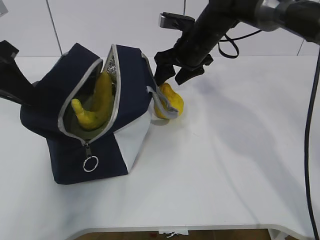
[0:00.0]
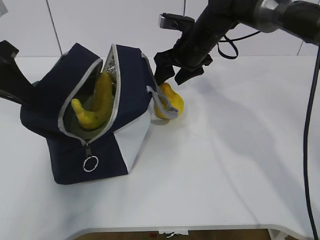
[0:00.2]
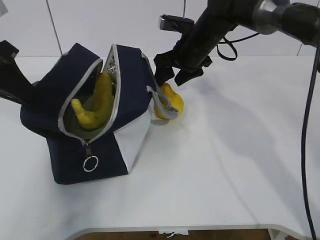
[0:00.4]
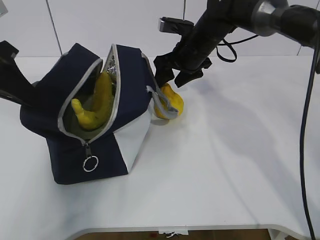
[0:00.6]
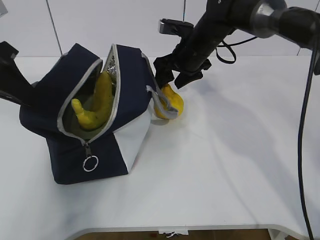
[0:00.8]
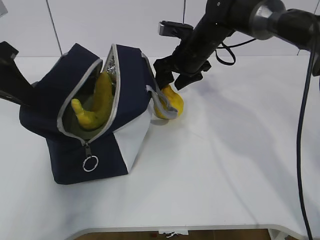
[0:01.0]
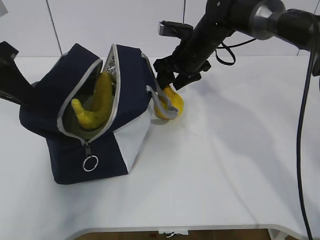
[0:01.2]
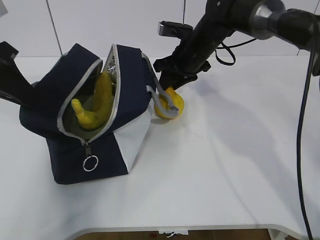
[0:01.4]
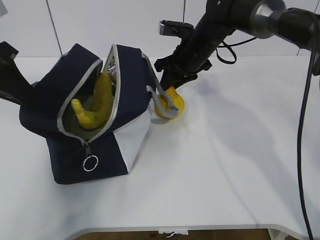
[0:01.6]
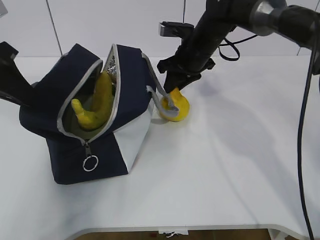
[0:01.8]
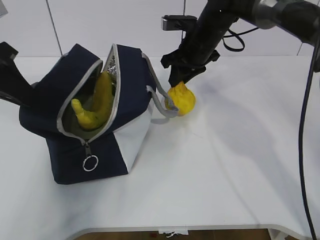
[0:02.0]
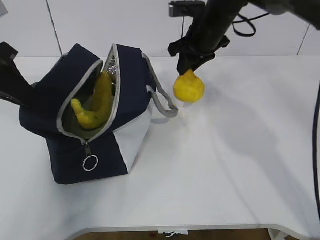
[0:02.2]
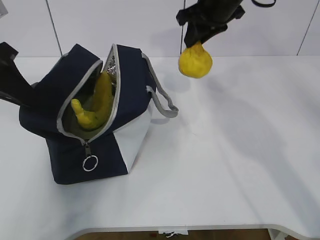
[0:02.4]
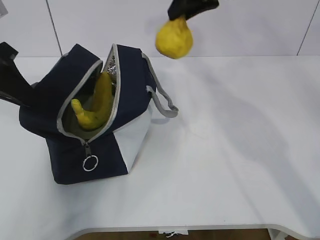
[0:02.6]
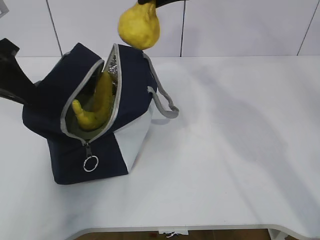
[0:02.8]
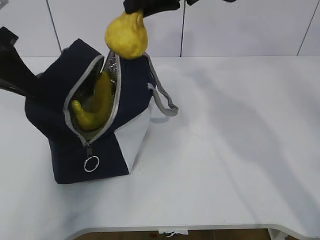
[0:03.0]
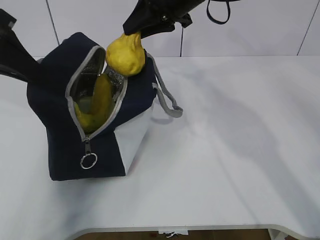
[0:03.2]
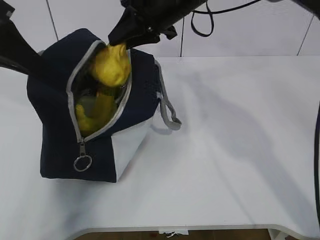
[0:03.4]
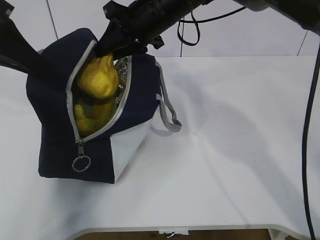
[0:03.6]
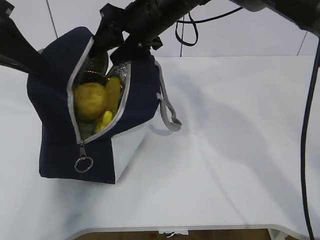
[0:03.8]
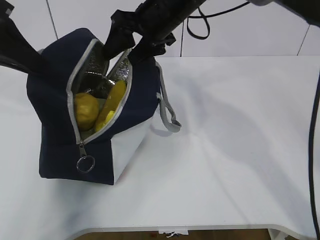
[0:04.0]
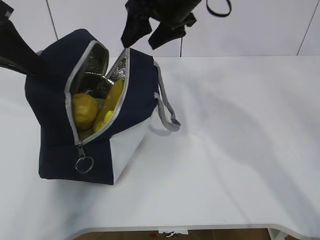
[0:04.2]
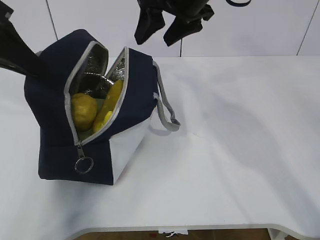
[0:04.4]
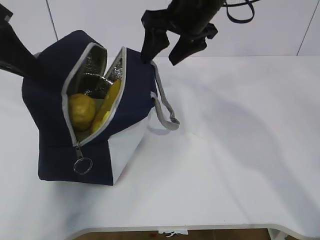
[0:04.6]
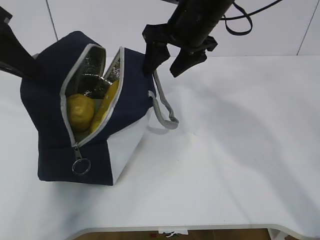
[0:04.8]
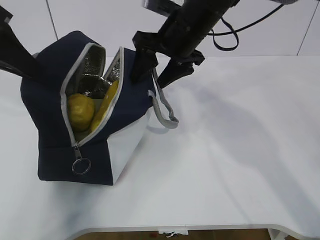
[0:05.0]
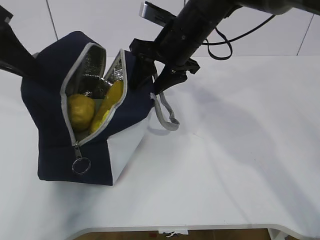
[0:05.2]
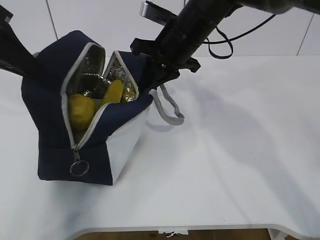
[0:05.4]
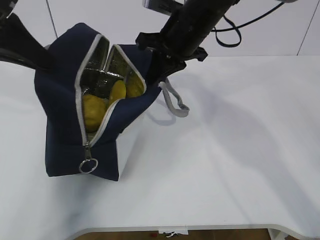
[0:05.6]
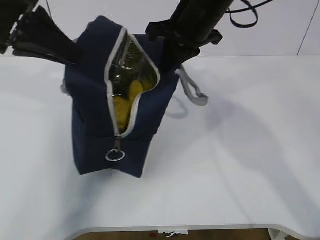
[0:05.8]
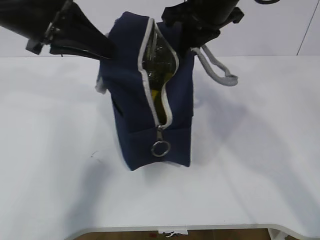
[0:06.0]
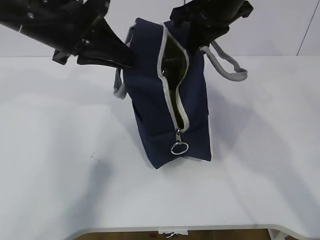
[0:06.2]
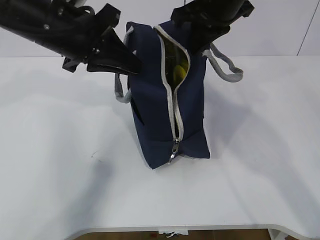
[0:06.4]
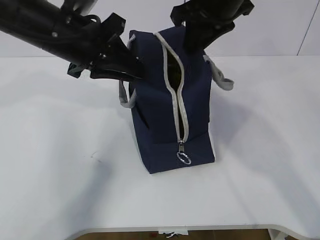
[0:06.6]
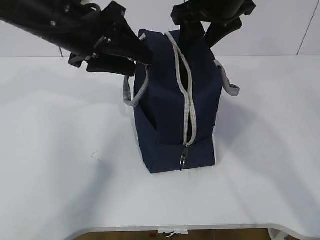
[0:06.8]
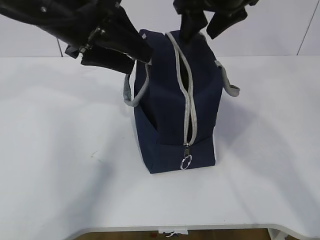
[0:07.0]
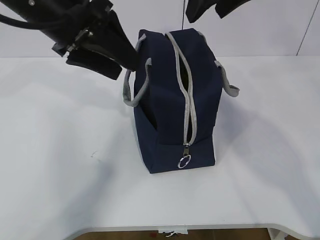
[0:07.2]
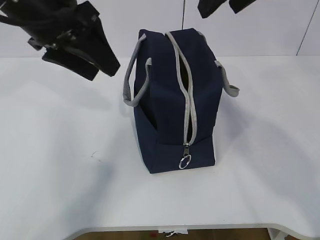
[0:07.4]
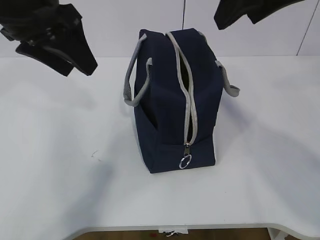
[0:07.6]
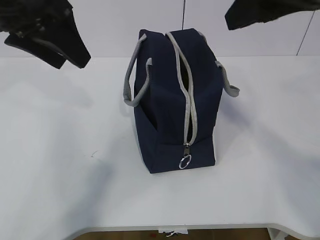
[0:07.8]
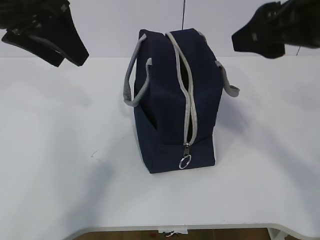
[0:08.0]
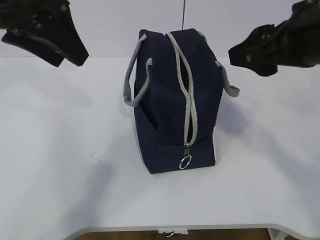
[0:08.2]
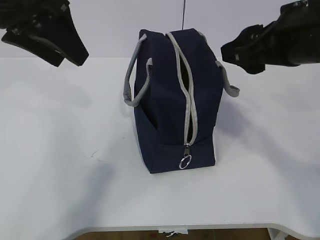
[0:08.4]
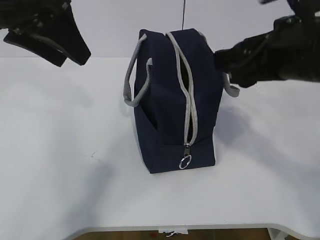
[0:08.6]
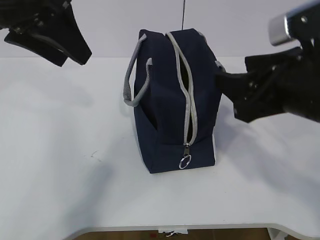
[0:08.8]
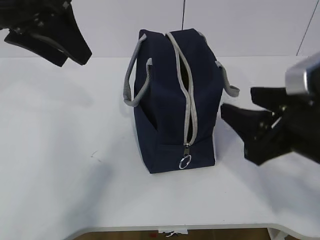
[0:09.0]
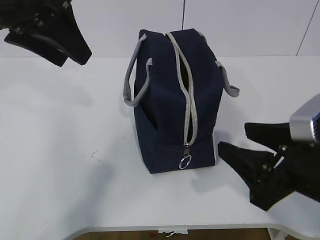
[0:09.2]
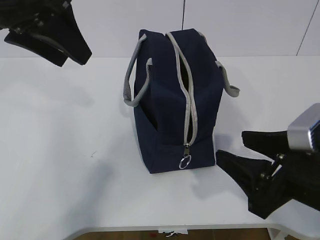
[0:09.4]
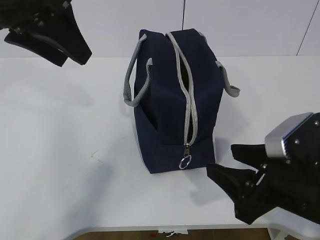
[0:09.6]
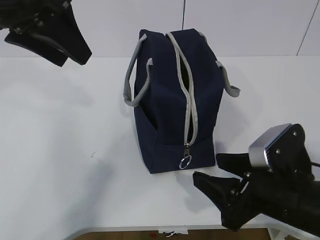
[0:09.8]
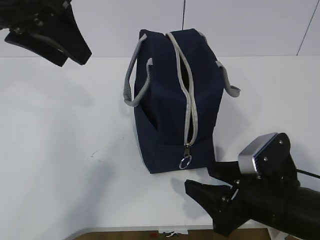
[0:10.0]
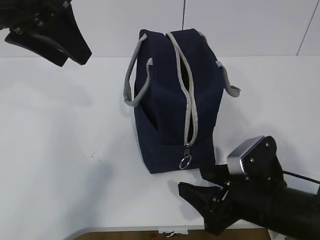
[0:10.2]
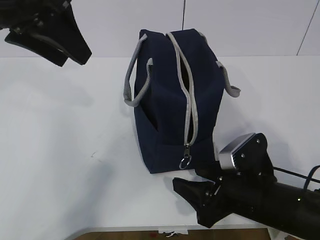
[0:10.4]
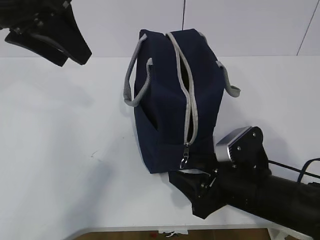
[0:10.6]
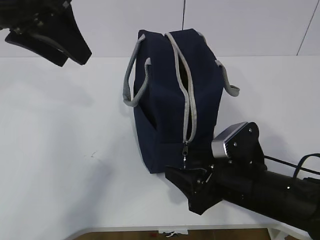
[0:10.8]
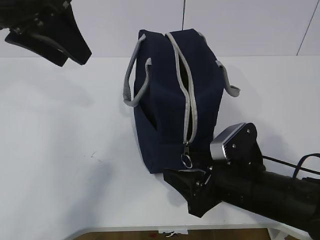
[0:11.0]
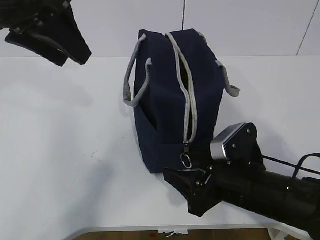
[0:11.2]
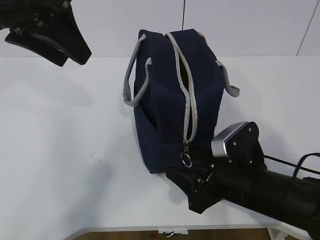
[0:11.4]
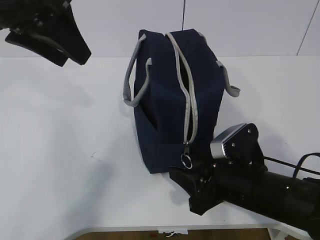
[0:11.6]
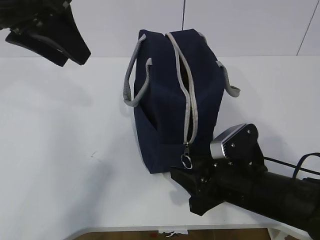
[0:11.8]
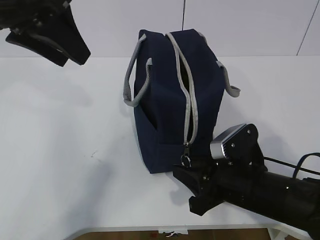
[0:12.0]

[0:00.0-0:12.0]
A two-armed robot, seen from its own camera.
Step, 0:01.8 to 0:04.0: Place the pear into the package with the right gripper.
0:00.0 to 0:01.6: The right gripper closes its fingers.
0:01.6 to 0:03.0: The right gripper moves upward, some 15 cm.
0:03.0 to 0:04.4: The right gripper opens.
0:04.4 to 0:06.0: The left gripper heads to the right, covering approximately 10 cm; the right gripper reaches approximately 10 cm downward, then returns, and closes up.
0:06.0 to 0:07.6: The right gripper travels backward and upward by some 10 cm, and opens, while the left gripper opens up.
0:07.6 to 0:09.0: The right gripper moves downward and backward, approximately 20 cm.
0:09.0 to 0:10.4: The right gripper goes about 15 cm downward.
0:10.4 to 0:12.0: The right gripper closes up.

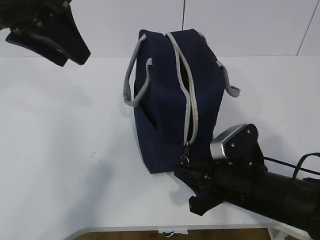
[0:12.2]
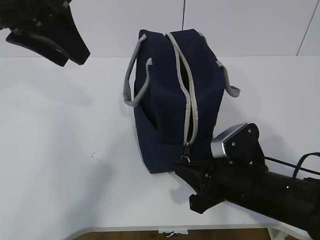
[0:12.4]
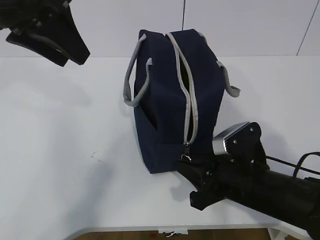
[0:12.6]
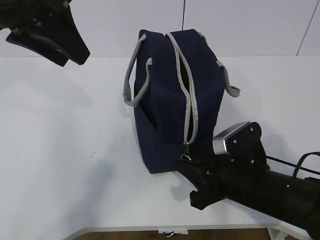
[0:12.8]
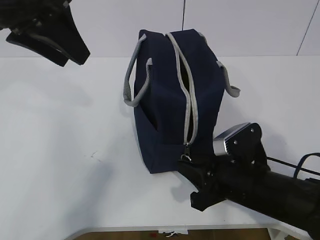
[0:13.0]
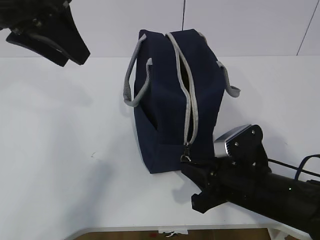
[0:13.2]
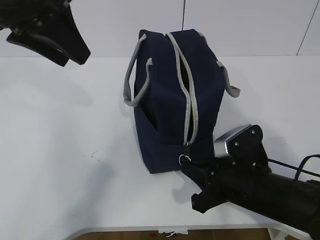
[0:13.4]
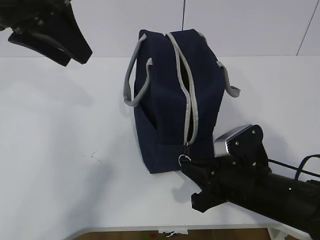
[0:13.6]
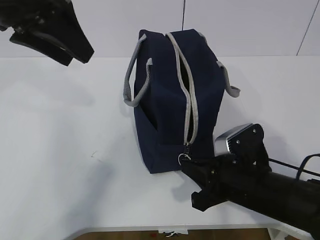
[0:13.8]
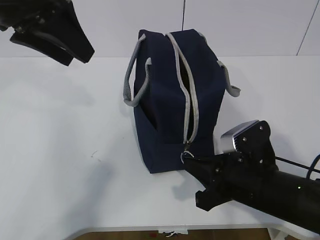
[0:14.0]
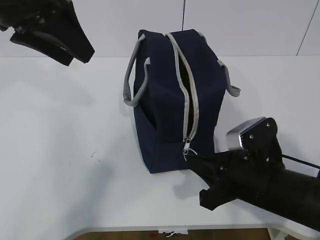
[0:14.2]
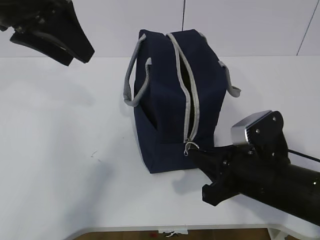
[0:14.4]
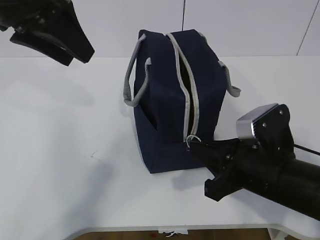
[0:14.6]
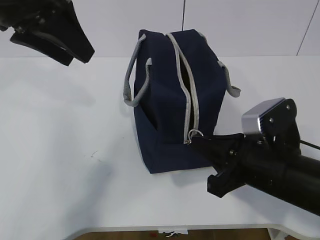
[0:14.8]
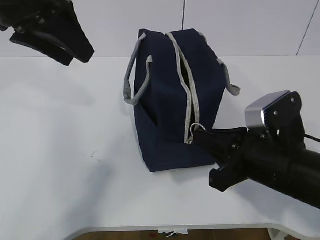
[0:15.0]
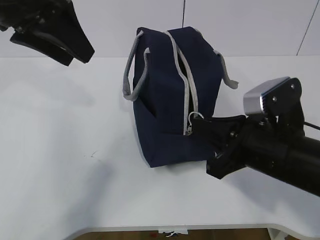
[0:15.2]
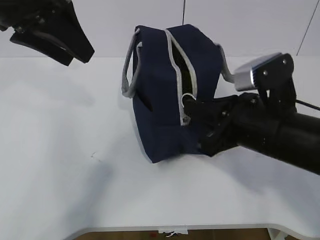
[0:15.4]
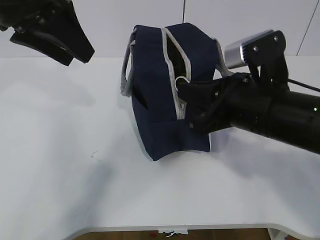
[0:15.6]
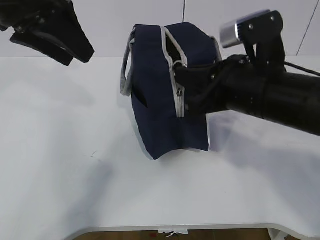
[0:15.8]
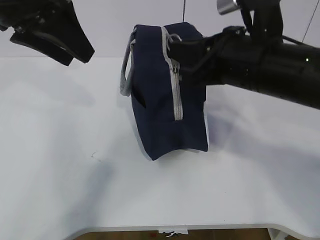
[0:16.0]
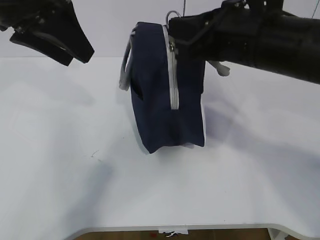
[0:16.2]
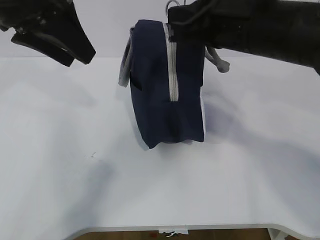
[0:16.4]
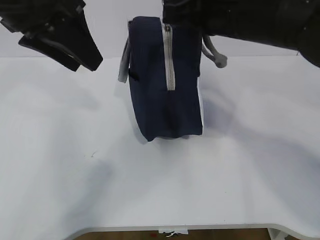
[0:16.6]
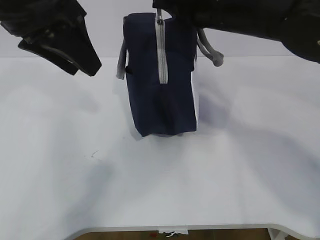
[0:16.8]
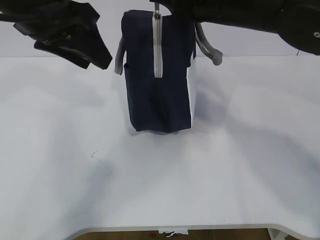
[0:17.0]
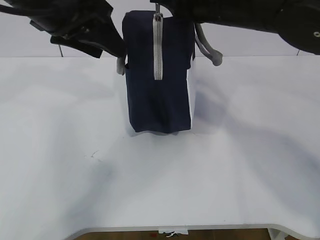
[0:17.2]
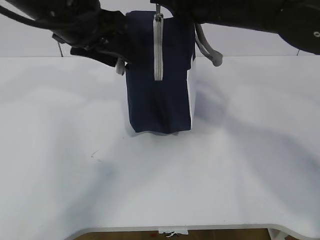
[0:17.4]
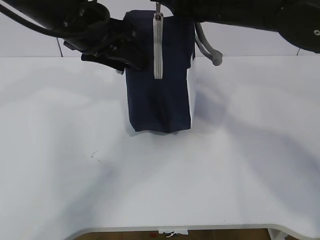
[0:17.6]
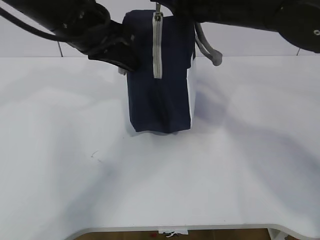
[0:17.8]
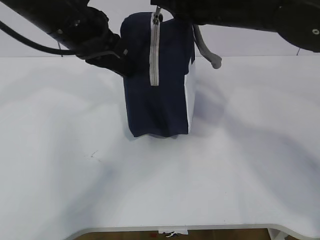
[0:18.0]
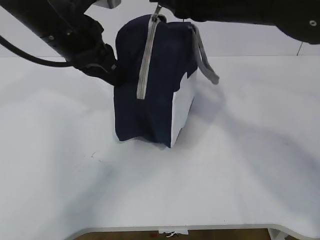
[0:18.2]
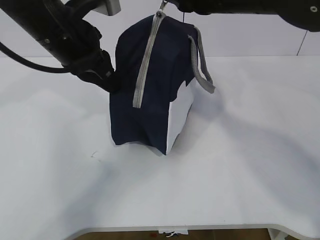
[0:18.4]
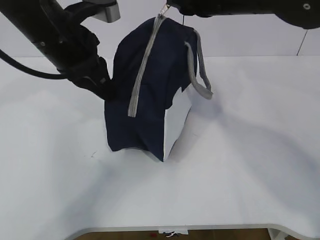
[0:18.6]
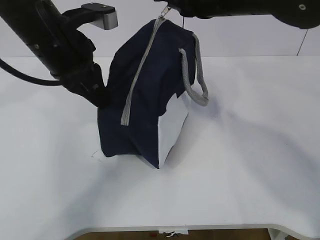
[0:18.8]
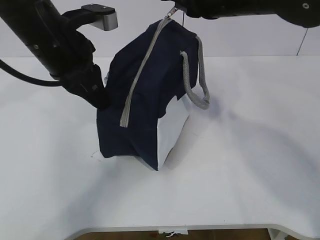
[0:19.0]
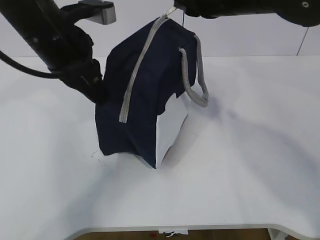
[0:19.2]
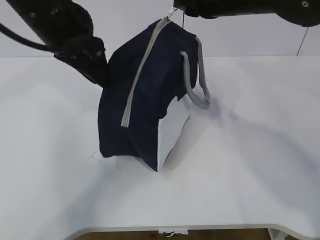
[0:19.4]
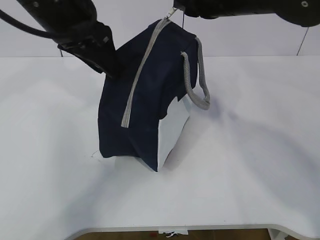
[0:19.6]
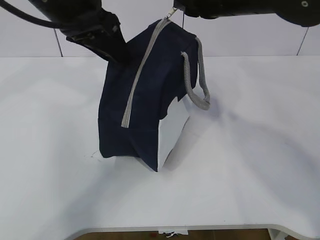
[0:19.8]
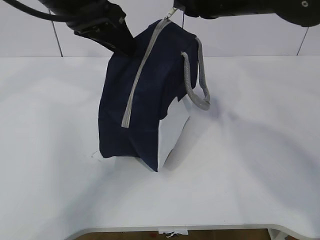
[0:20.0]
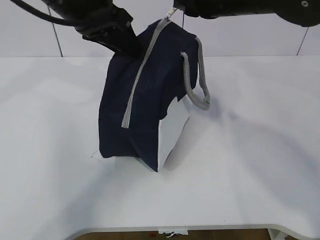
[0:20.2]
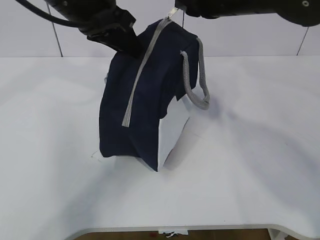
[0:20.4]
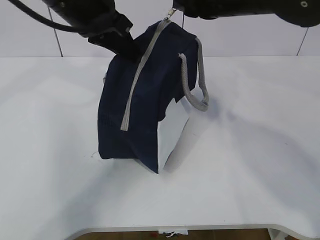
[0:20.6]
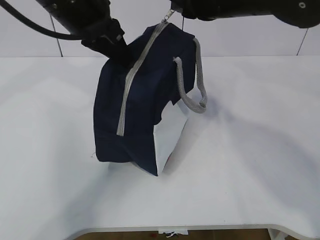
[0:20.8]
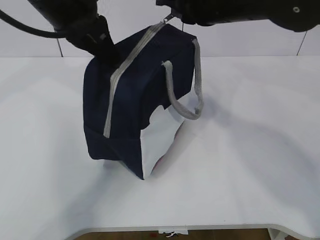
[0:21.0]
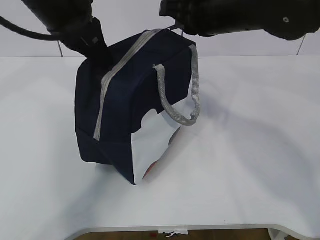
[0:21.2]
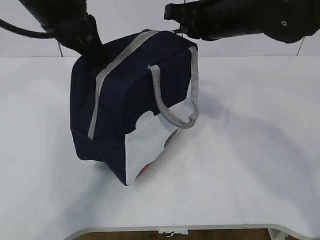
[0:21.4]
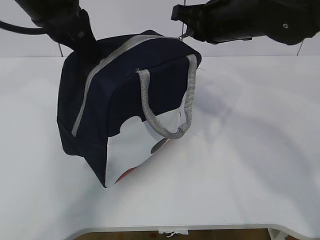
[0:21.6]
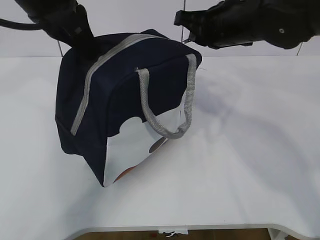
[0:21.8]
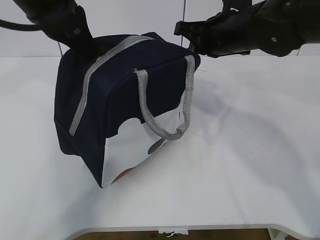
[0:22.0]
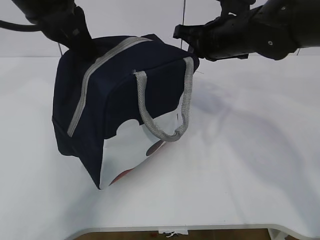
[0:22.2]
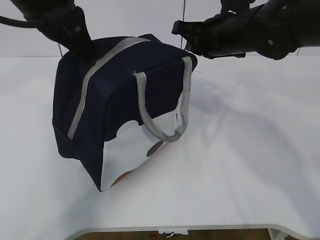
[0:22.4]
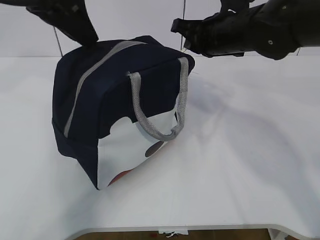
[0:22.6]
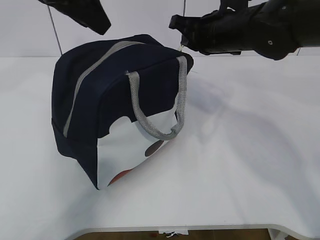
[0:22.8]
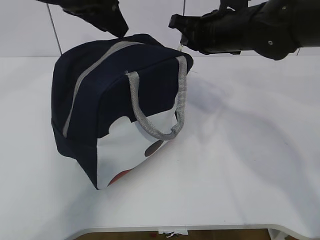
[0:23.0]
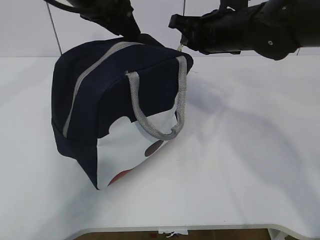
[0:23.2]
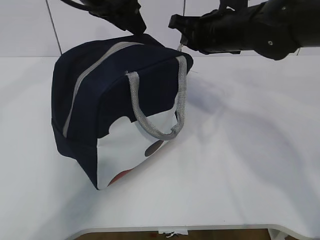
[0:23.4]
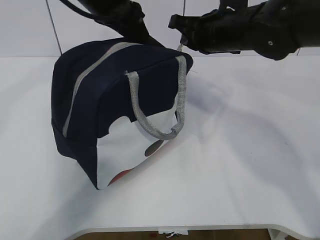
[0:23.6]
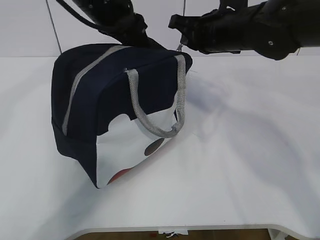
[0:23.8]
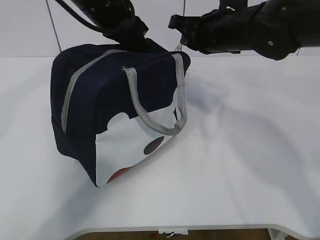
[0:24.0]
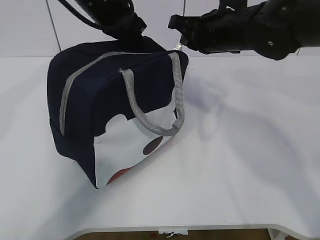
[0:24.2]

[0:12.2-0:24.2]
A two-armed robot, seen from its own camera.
0:12.2 to 0:13.8: The right gripper closes.
0:13.8 to 0:15.2: The right gripper heads upward, covering some 10 cm.
0:15.2 to 0:16.6: The right gripper moves upward and forward, roughly 15 cm.
0:16.6 to 0:18.2: The left gripper shifts some 5 cm downward, and closes up.
0:18.2 to 0:19.8: The left gripper opens up.
0:19.8 to 0:21.2: The left gripper closes.
0:21.2 to 0:22.6: The left gripper opens up, while the right gripper shifts by about 5 cm.
0:22.6 to 0:24.2: The left gripper moves forward, downward and to the right, some 15 cm, and closes up.
